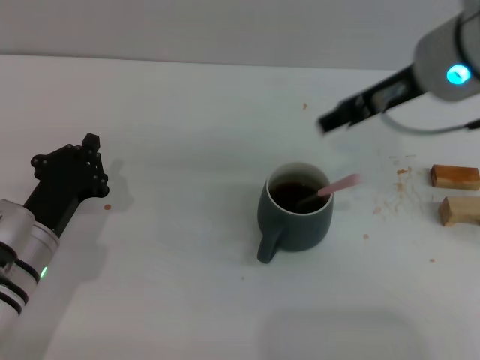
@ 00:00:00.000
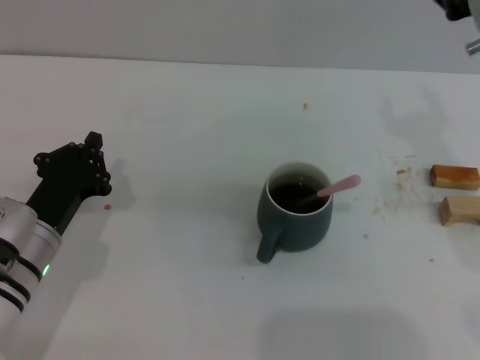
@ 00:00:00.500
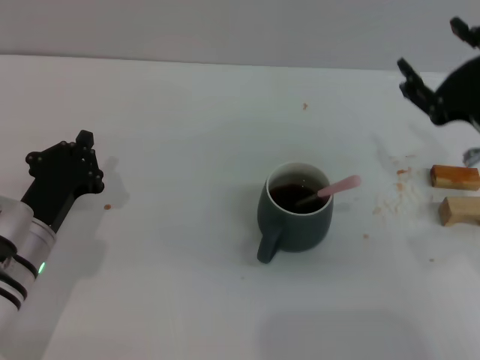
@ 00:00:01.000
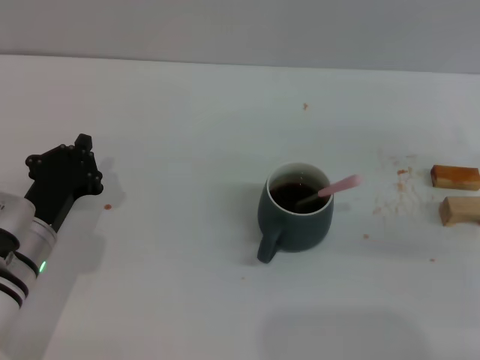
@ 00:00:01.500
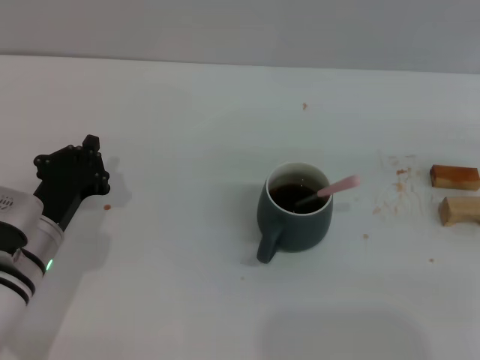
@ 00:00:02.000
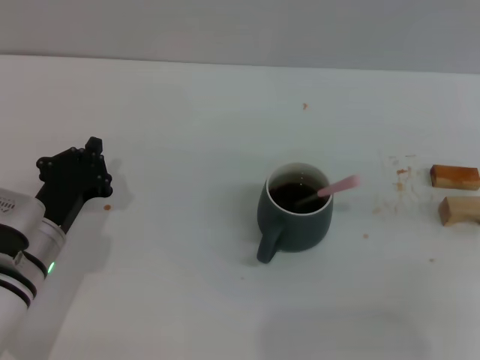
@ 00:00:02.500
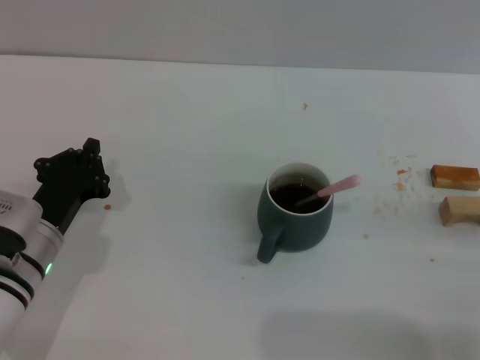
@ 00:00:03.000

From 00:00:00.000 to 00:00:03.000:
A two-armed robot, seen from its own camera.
Task of the whole recording: Move the grey cup to the center, lift the pink spoon, stir it three times in the cup, and put the spoon into the cup.
From 00:00:00.000 to 00:00:01.500: The right gripper moves to the right and downward, approximately 20 cm, and opens up.
From 00:00:01.500 to 00:00:03.000: The right gripper travels backward and downward by roughly 10 cm.
